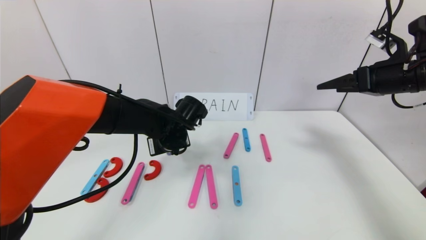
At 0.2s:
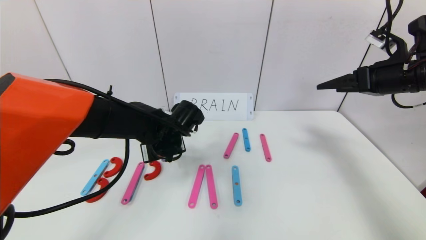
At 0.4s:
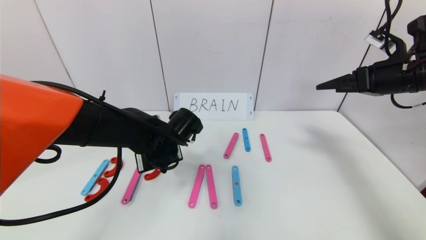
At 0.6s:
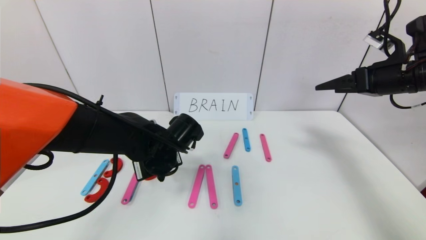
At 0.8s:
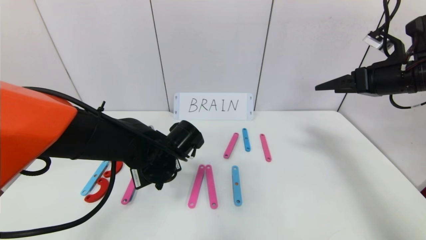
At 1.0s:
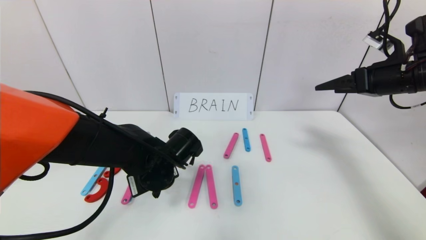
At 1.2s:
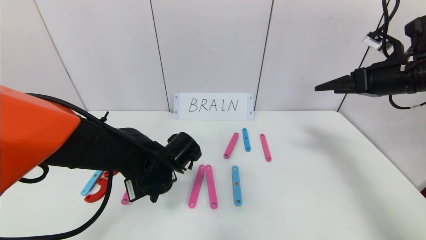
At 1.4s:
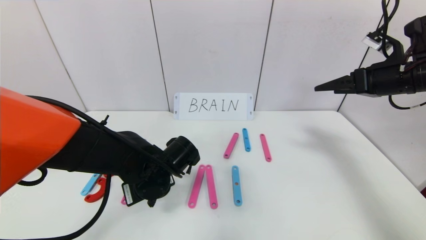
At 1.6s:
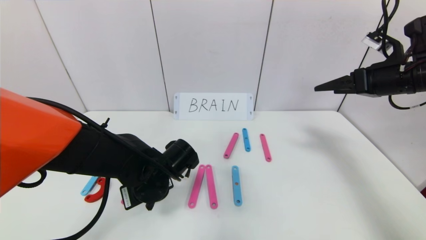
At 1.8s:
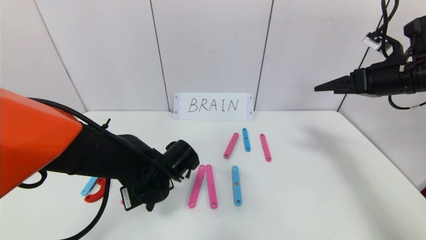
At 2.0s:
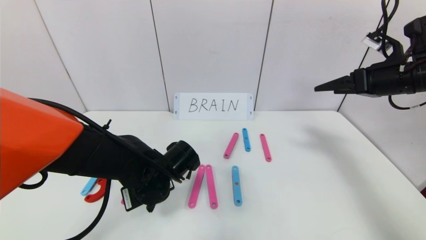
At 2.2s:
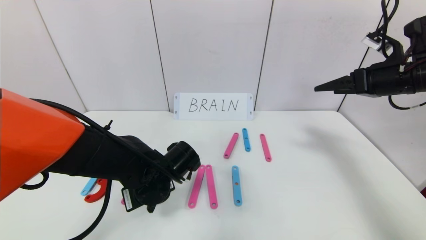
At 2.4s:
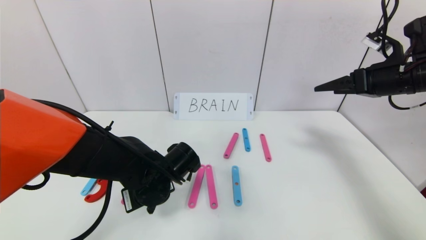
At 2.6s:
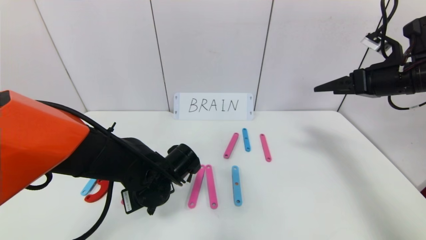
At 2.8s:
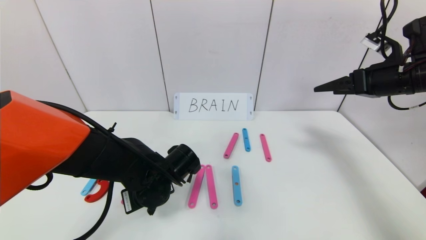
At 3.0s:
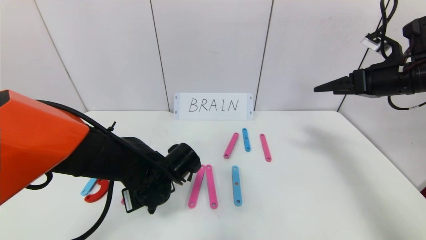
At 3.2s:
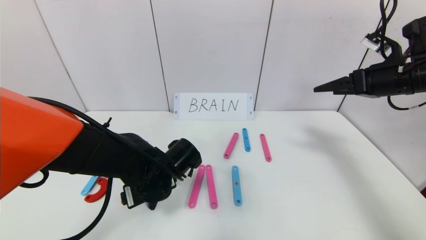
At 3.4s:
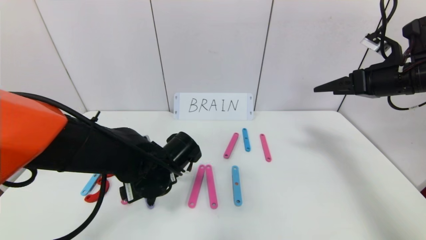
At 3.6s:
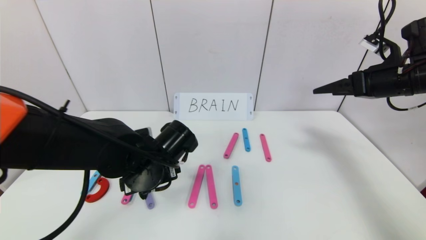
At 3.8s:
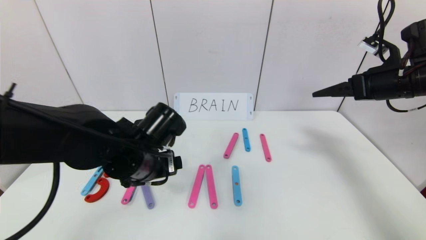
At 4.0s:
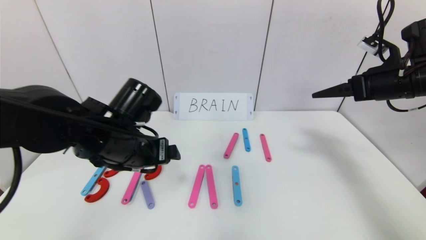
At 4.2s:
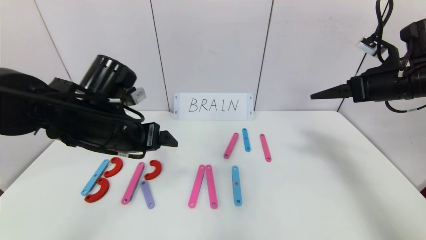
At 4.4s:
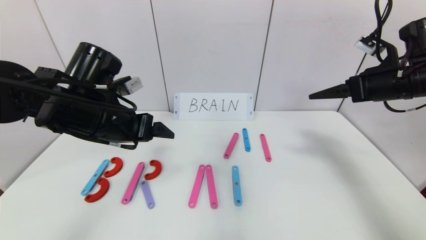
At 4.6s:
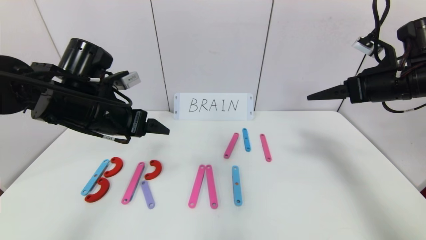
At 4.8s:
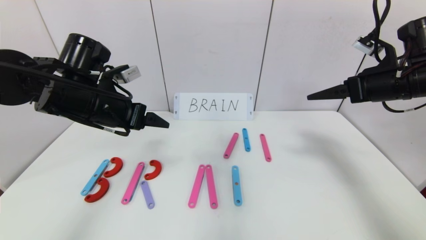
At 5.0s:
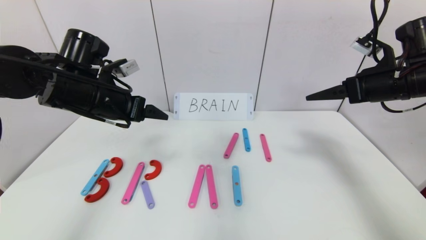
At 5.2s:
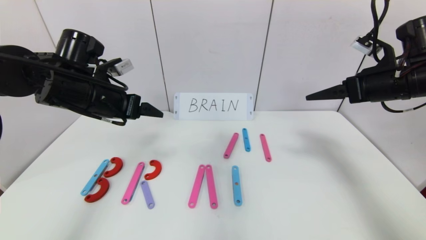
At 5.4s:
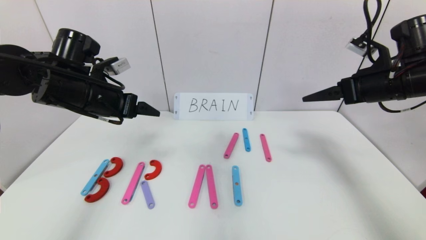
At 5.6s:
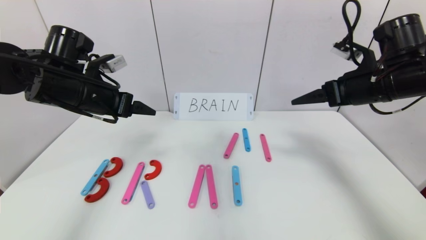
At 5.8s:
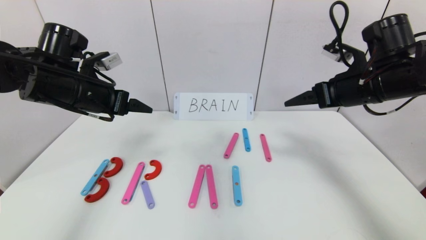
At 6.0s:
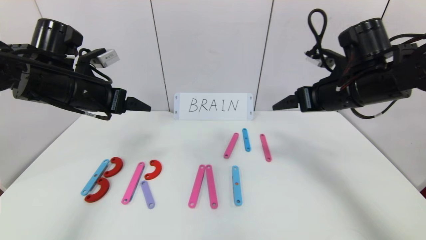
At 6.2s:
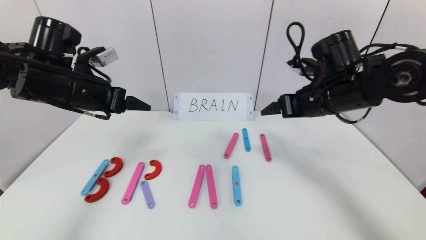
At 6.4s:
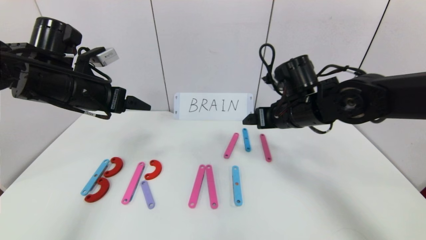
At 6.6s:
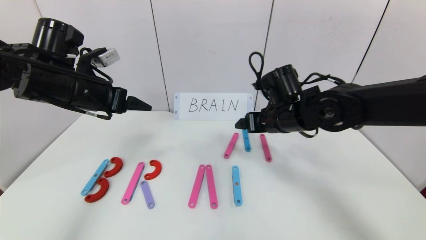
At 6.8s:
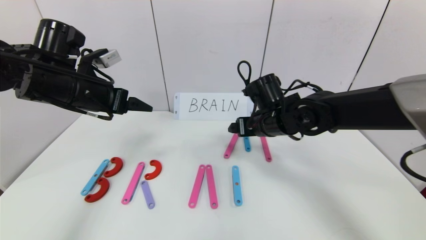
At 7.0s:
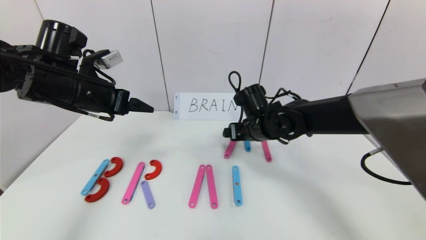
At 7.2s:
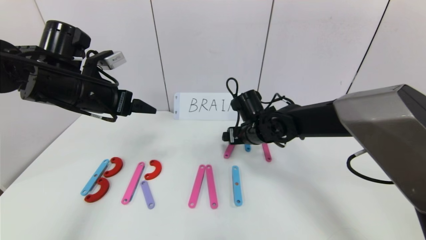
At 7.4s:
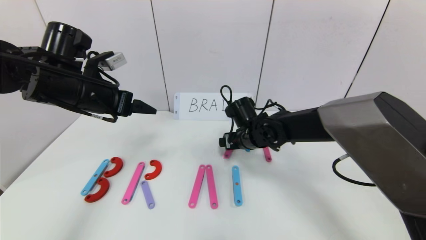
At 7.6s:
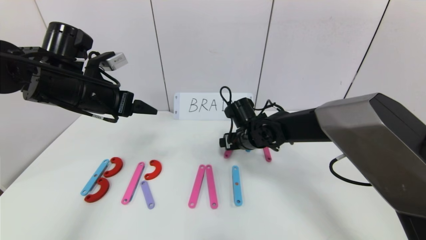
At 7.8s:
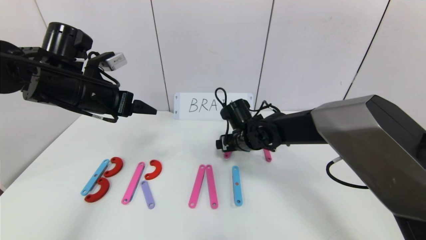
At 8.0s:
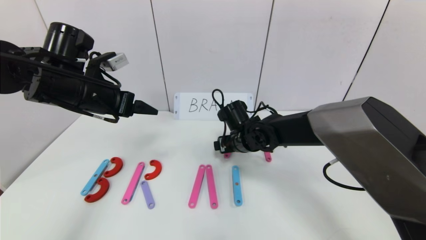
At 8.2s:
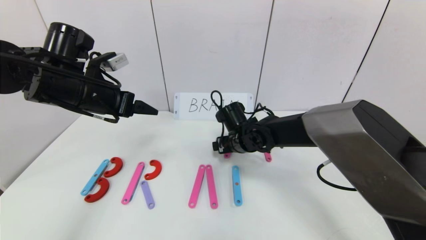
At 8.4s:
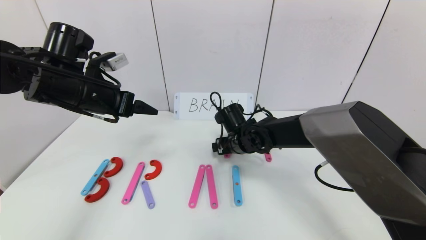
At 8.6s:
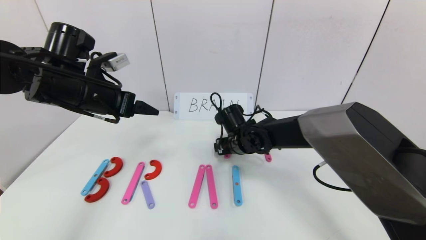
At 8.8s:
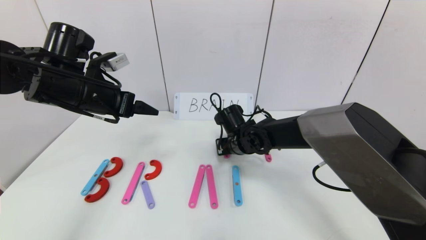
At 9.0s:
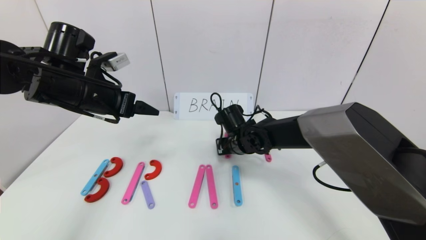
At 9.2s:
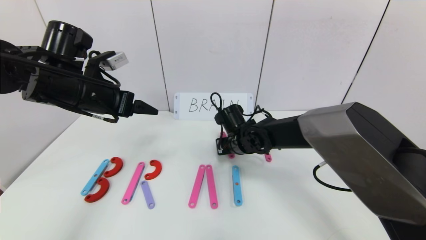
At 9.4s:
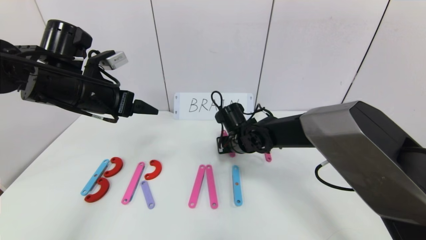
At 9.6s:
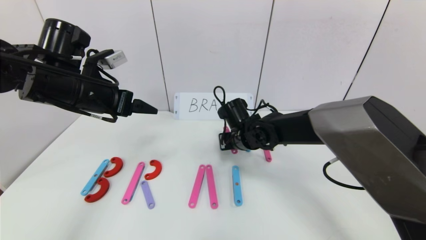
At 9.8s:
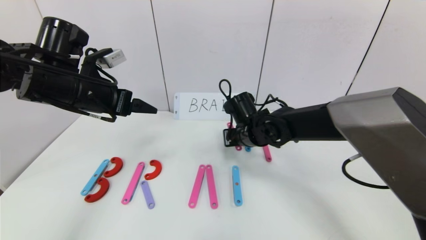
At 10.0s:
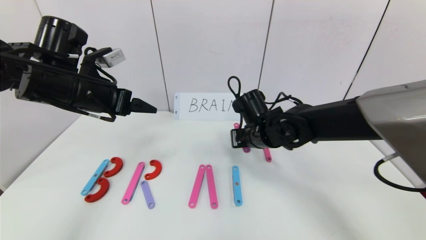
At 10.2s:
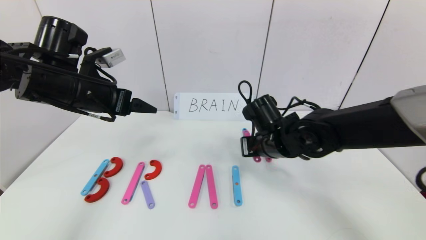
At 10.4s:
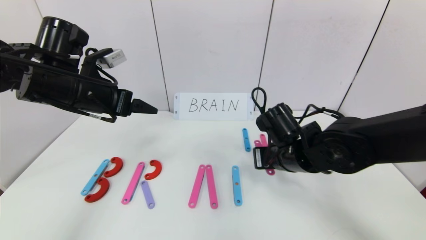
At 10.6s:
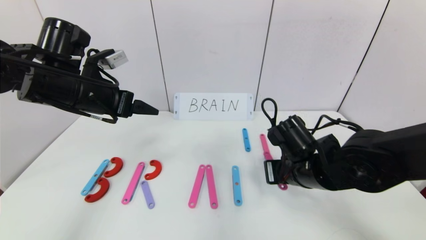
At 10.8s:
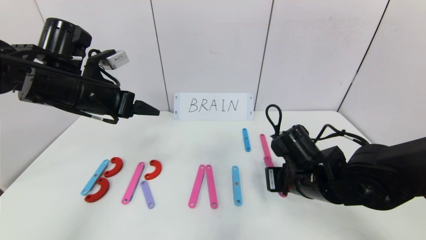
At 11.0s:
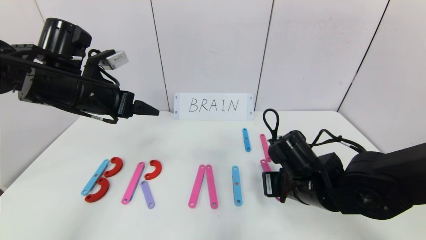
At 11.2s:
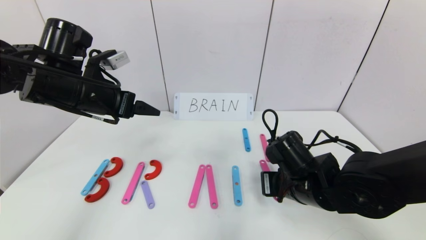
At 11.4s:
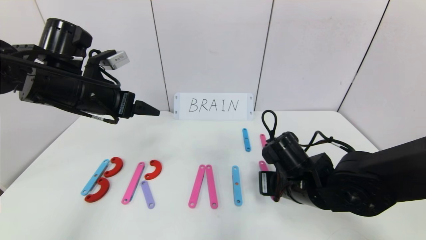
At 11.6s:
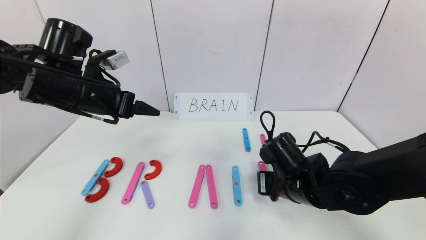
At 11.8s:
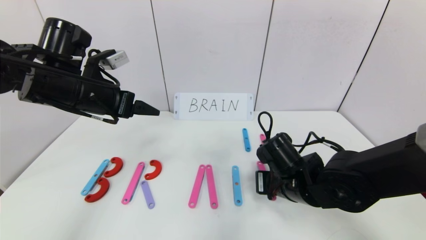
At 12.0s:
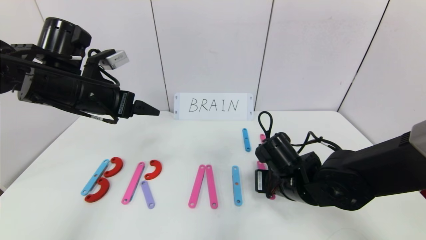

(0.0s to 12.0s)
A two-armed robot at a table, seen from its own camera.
Task of the whole recording: rearrange the word baai as brain.
Step, 0.0s - 2.8s: Place the character R between first character B and third character A.
0.0s - 1.6s: The left gripper is displaced backward by approximately 10 cm.
1.6s - 3.0s: The left gripper opens.
3.0s - 4.4s: The left gripper shifts approximately 15 cm upward and to the left.
4.4s - 6.0s: The left gripper travels to the left by about 5 cm. The right gripper shifts roughly 10 cm to the left.
6.0s - 7.6s: The right gripper heads downward, to the left and forward, covering roughly 25 cm.
7.6s - 9.0s: The right gripper closes its fingers.
9.0s - 10.4s: The right gripper moves backward, to the right and upward, approximately 15 cm.
10.4s - 12.0s: The right gripper shifts by about 5 cm.

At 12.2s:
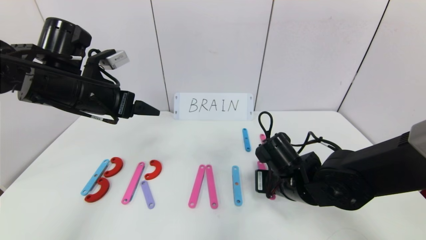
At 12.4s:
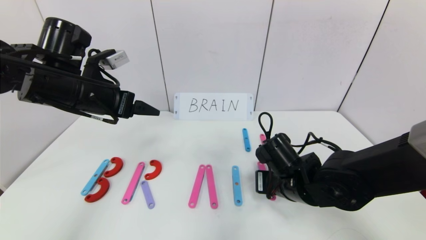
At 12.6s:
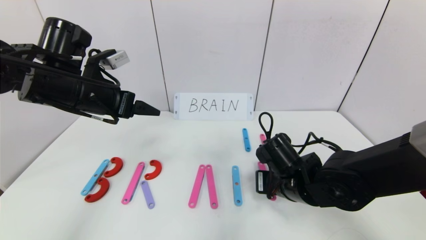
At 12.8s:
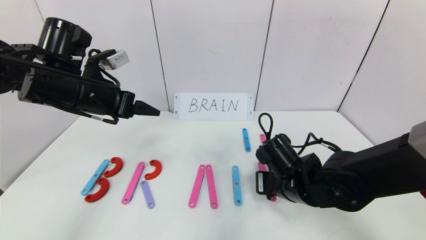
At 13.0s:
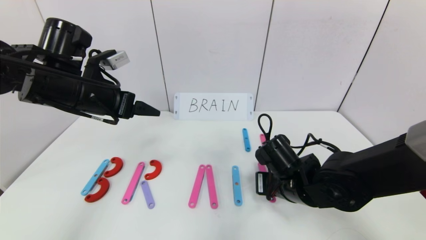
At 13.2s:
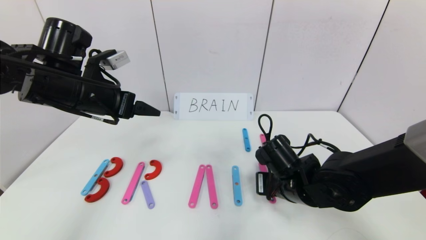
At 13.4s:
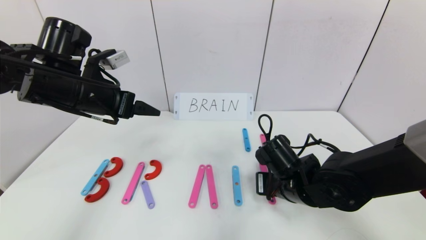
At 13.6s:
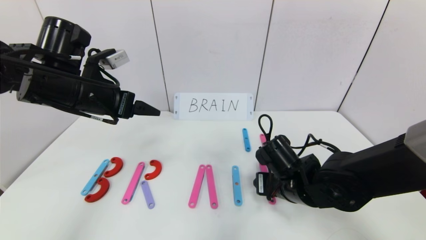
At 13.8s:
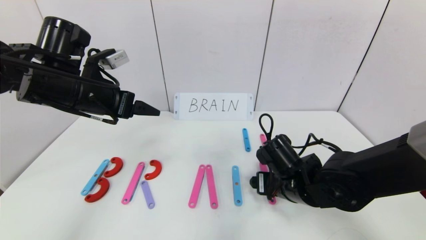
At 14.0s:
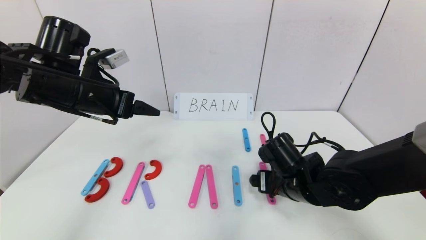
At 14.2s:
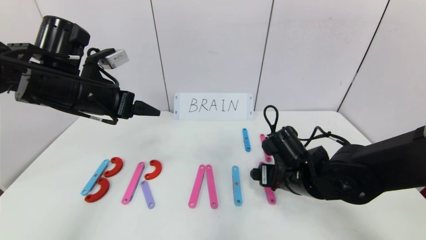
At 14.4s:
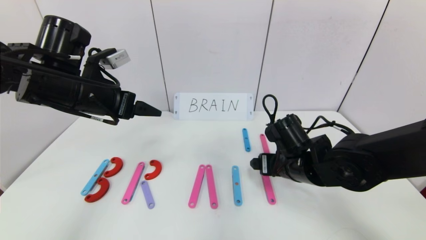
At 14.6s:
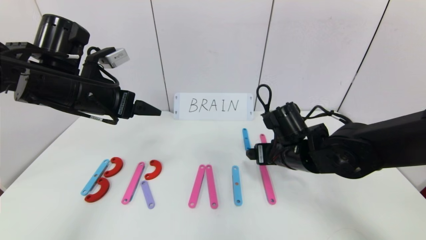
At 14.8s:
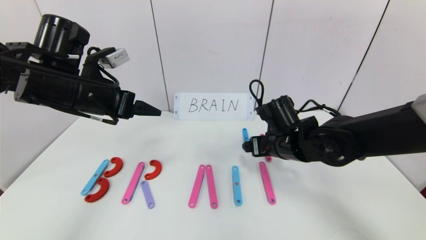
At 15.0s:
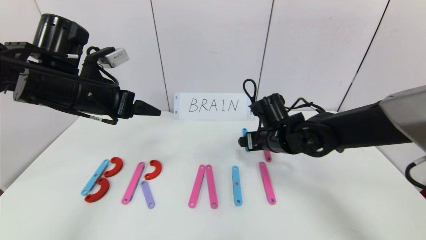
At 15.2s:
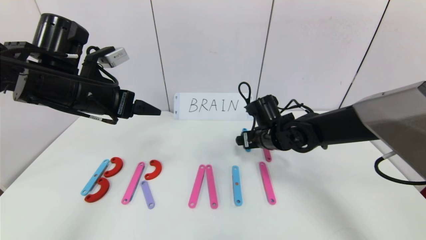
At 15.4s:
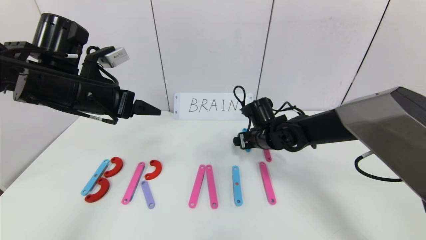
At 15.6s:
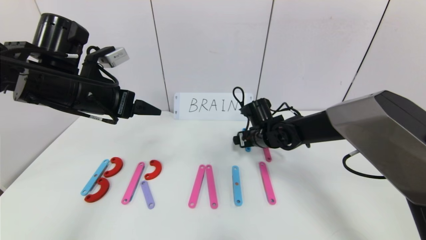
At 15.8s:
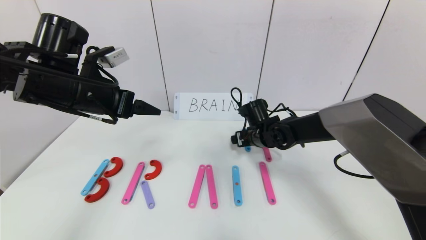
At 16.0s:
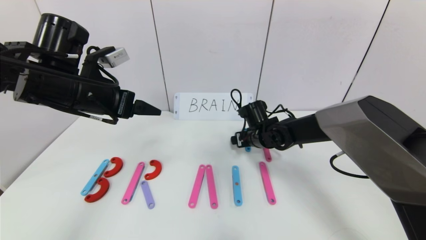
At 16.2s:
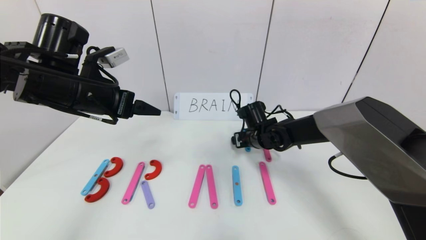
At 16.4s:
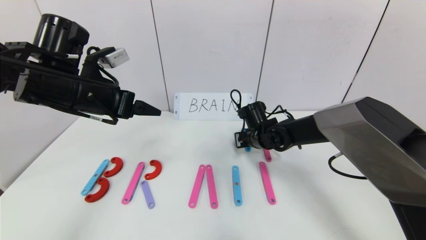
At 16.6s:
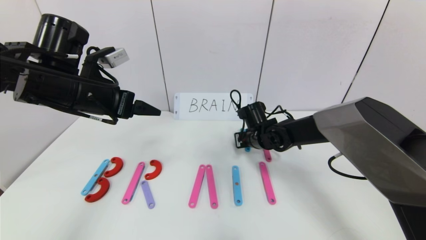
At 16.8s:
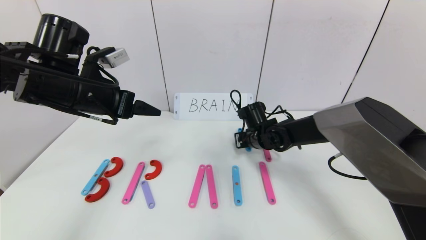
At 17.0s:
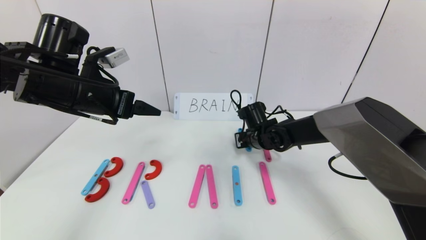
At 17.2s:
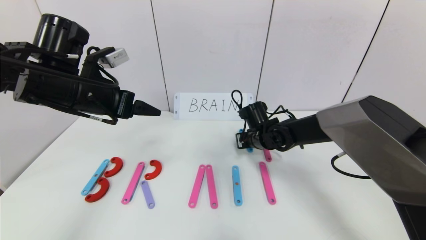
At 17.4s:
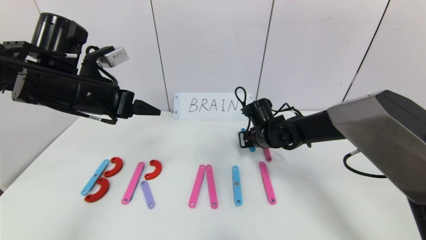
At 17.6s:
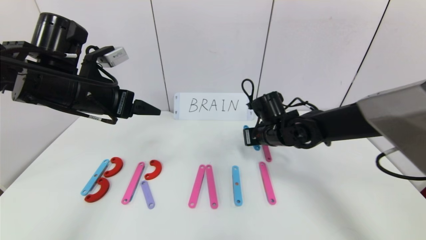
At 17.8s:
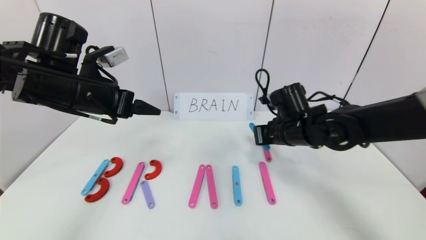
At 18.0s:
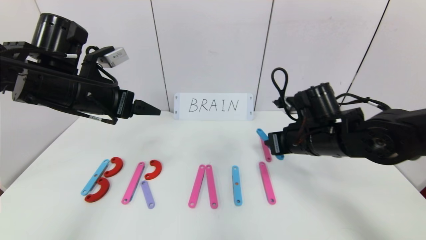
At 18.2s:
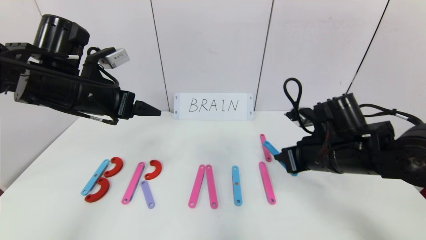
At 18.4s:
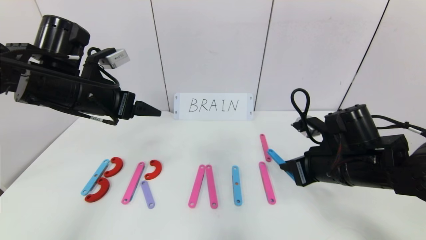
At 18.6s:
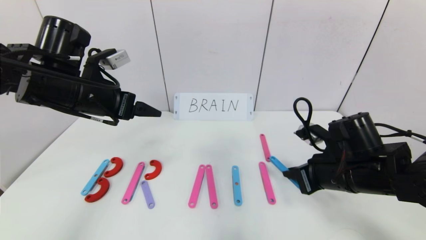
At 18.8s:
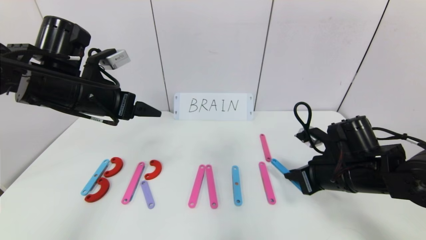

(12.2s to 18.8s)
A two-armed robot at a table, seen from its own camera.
Task of the whole recording: rearrange the word baai as brain.
12.2s - 13.8s: The right gripper opens its fingers.
13.8s - 15.4s: The right gripper heads forward, covering approximately 15 cm.
15.4s - 17.2s: The right gripper closes up.
17.2s - 18.8s: The right gripper is displaced backward and to the right by approximately 20 cm.
